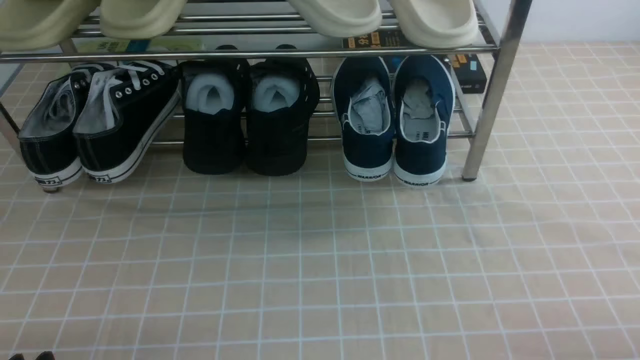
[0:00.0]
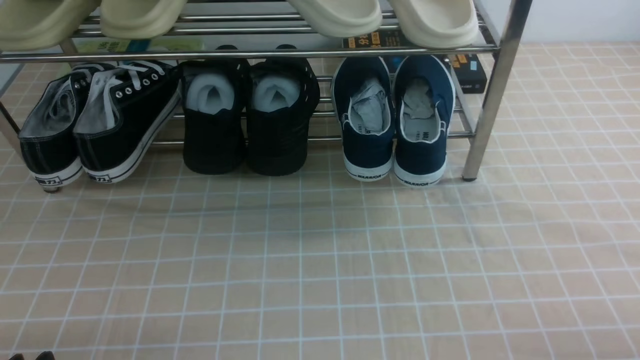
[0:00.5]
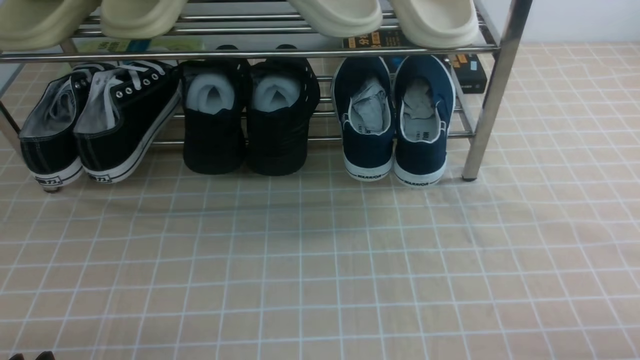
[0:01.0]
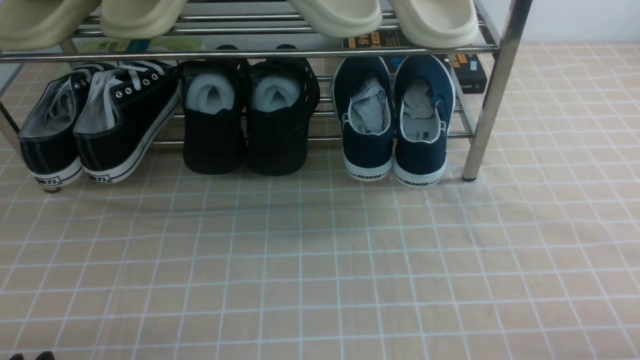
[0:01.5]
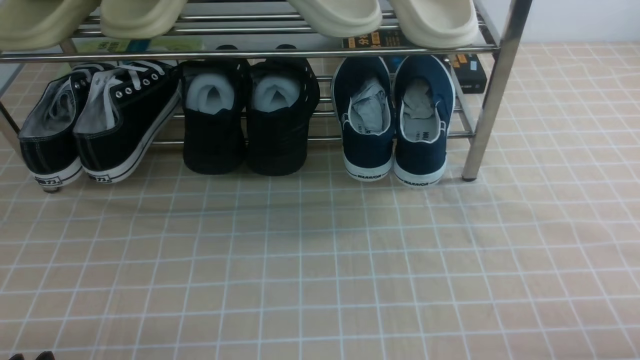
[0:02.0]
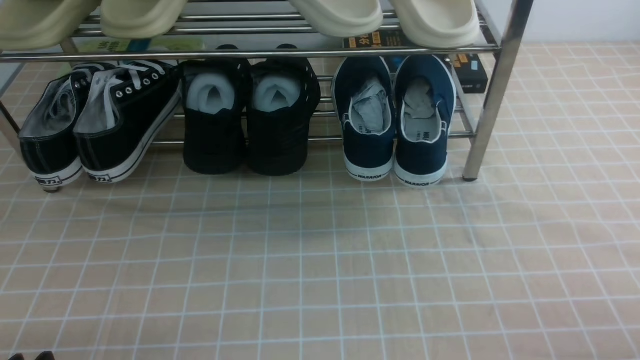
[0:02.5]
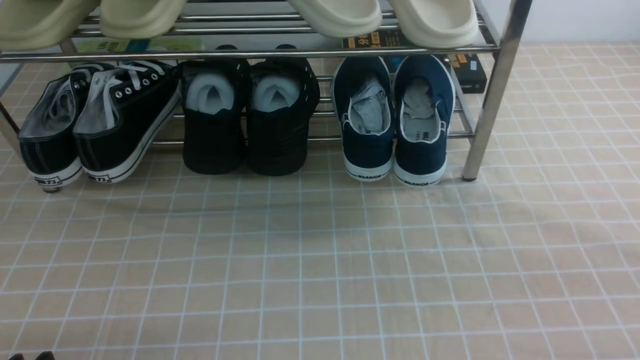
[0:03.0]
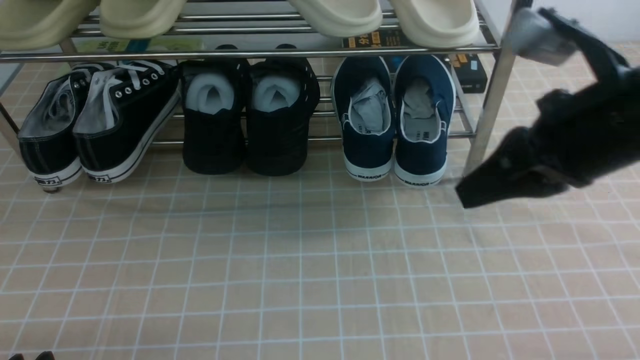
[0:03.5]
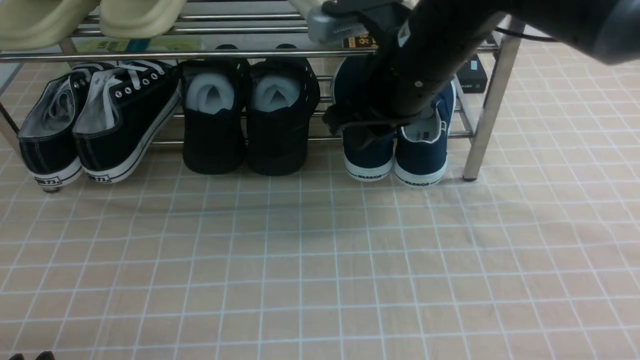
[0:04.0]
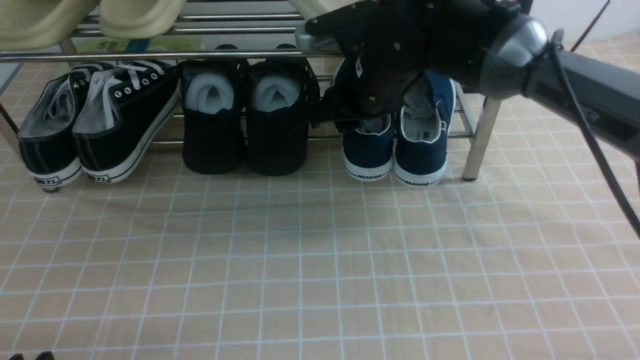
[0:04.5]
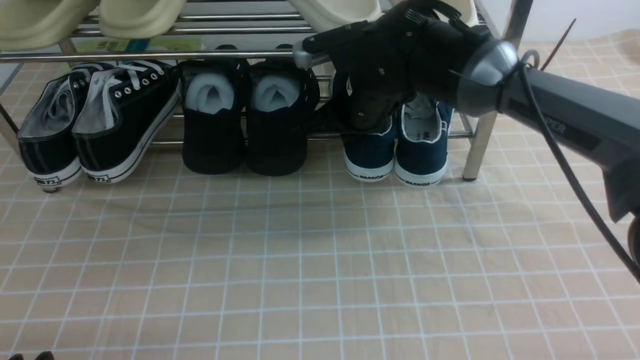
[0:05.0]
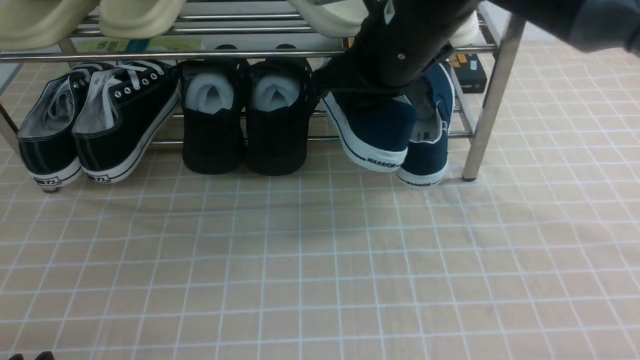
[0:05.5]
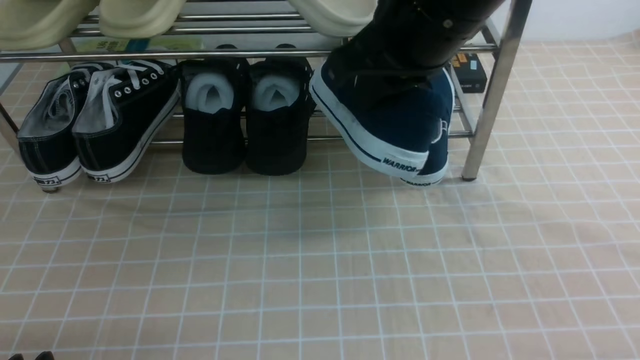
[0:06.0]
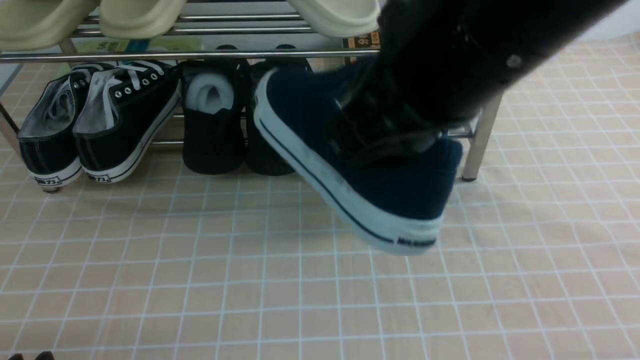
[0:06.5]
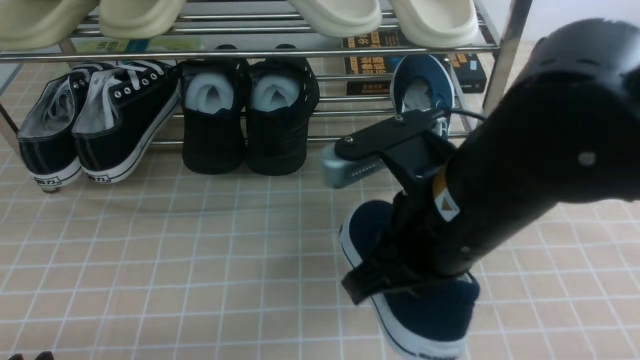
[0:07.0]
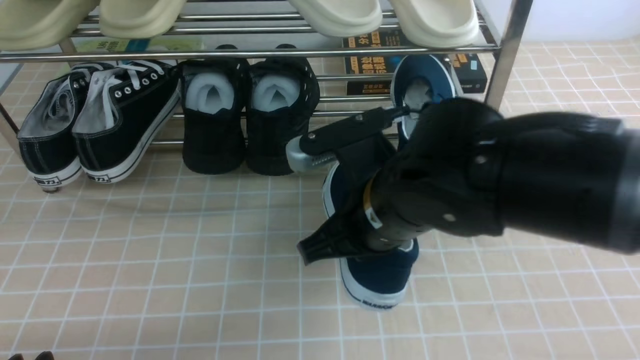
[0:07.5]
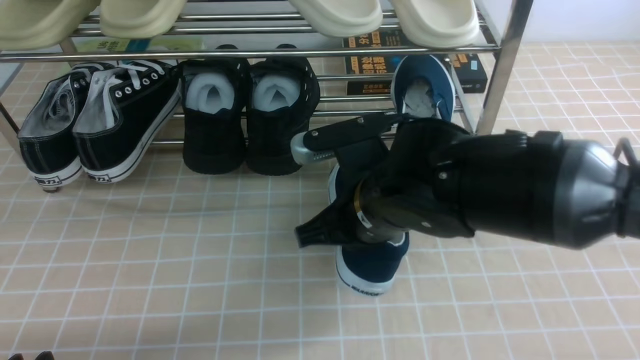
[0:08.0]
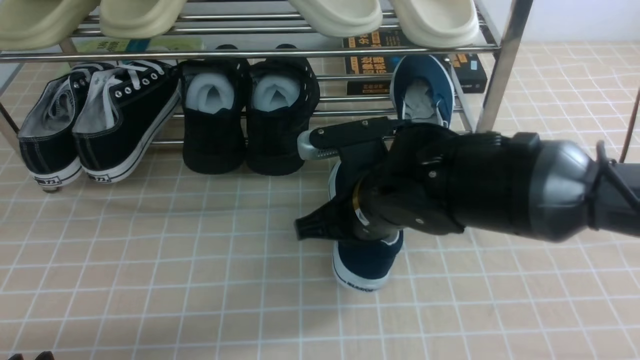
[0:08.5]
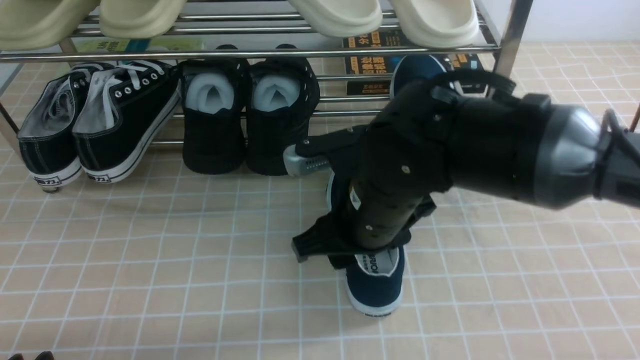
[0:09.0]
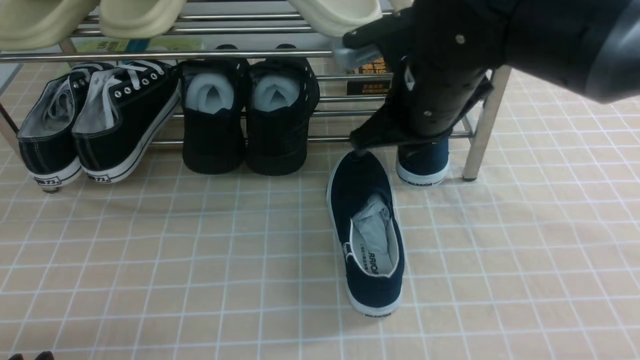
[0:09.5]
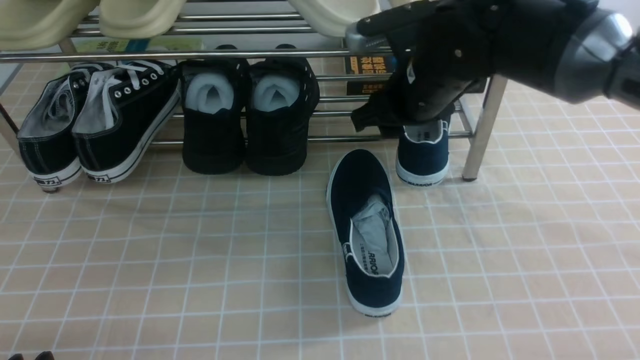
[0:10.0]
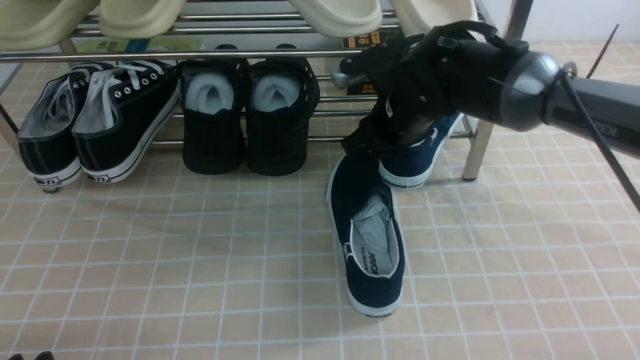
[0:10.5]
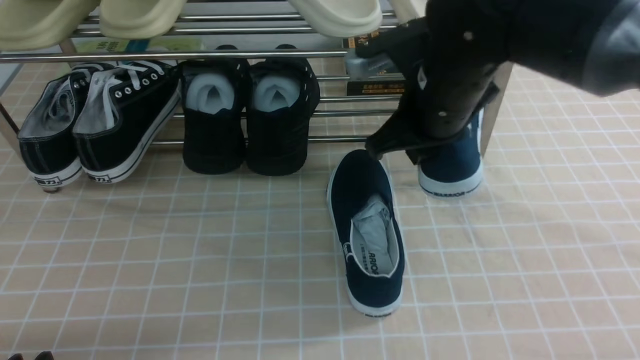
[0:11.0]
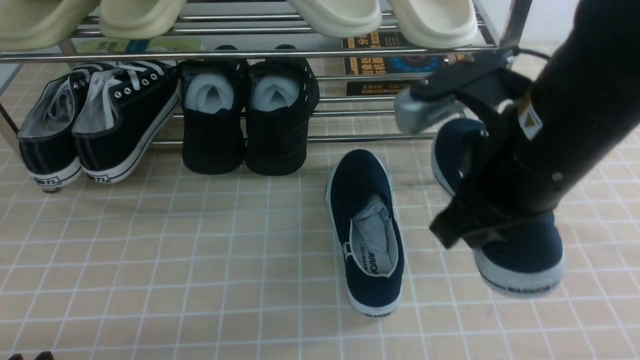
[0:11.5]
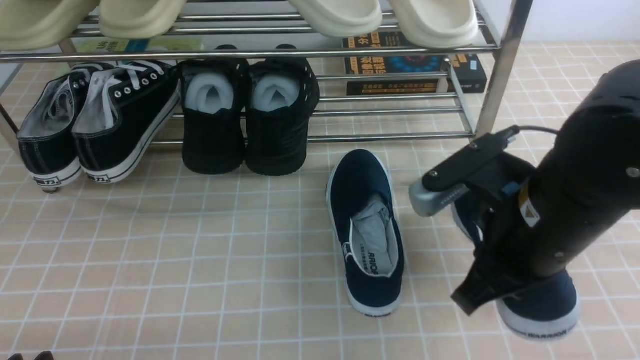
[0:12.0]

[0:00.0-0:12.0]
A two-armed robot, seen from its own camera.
Step, 0:00.0 to 0:05.0: use the right arm to clamp a shoe on the right side of the shoe rack.
Step, 0:05.5 to 0:08.5: use the right arm to take out the clamped shoe from the shoe rack and put it down.
Step, 0:09.0 to 0:10.5: use the right arm to clamp a shoe on the right side of the shoe rack.
0:02.0 to 0:04.0: The right gripper travels forward, to the left and upward by approximately 40 cm, and closes and opens again.
0:04.0 to 0:06.0: The right gripper travels upward and backward by some 10 cm, and closes.
0:06.0 to 0:08.0: The right gripper travels downward by approximately 20 cm.
0:08.0 to 0:10.0: The right gripper shifts some 15 cm forward and to the right, and opens its fingers.
0:10.0 to 0:12.0: The right gripper goes approximately 15 cm backward, and closes.

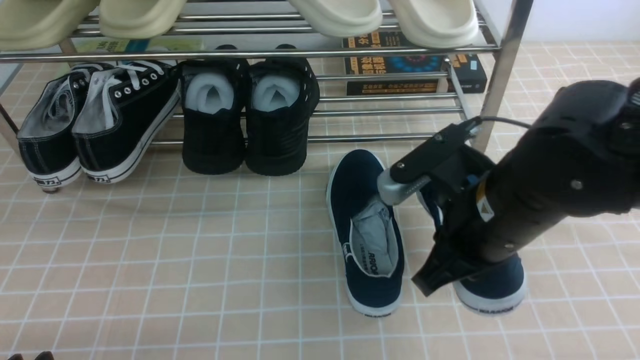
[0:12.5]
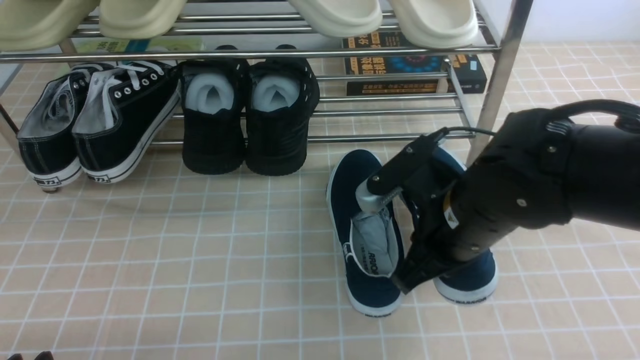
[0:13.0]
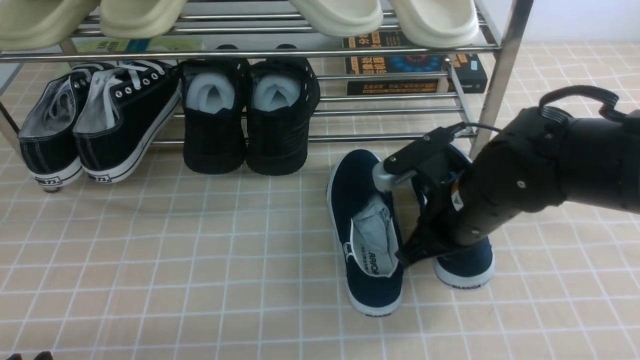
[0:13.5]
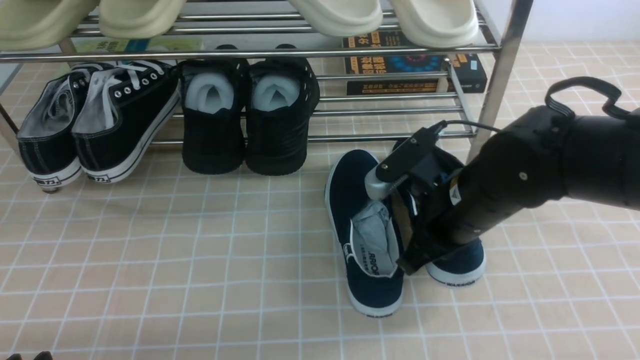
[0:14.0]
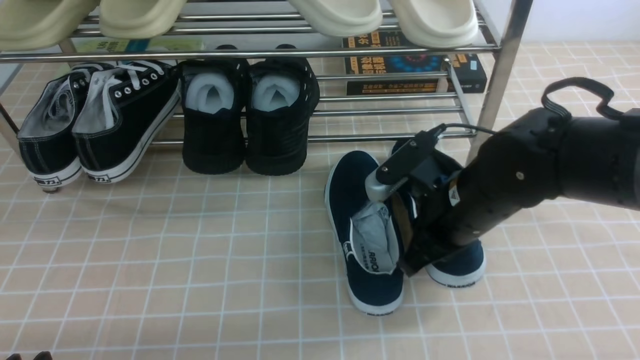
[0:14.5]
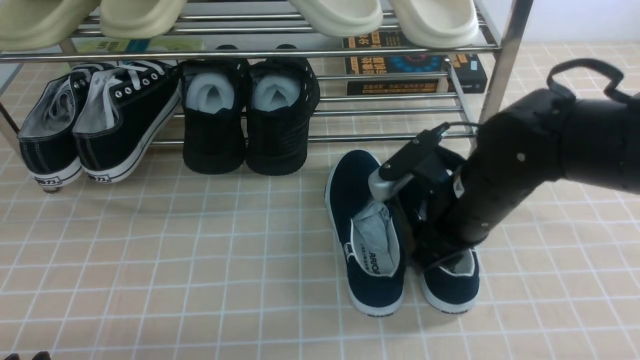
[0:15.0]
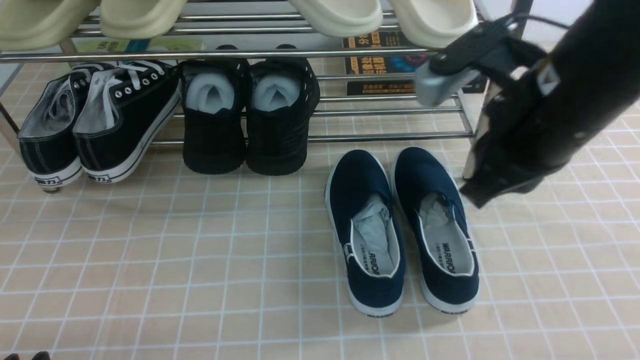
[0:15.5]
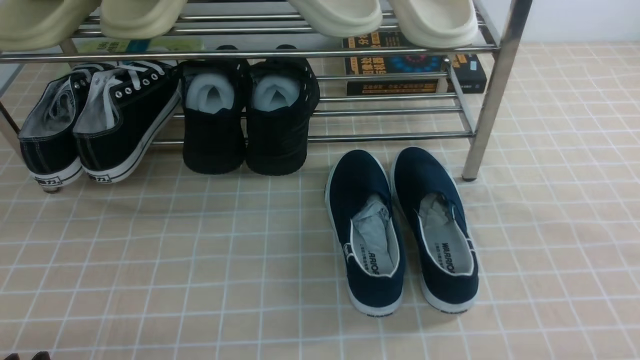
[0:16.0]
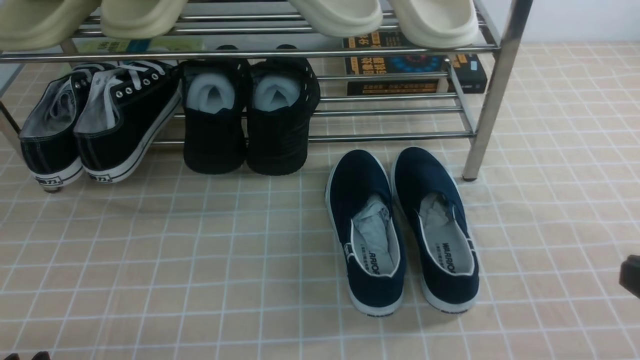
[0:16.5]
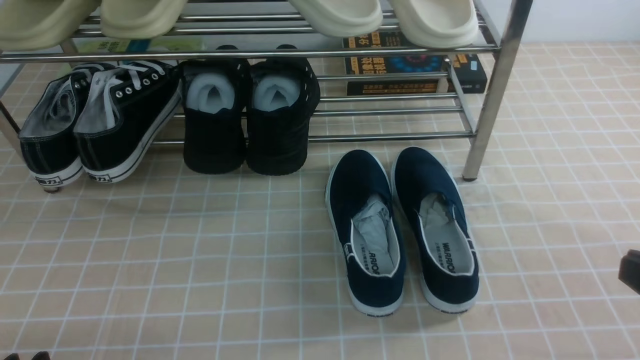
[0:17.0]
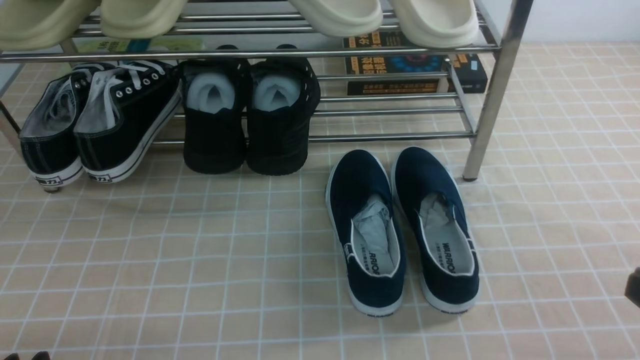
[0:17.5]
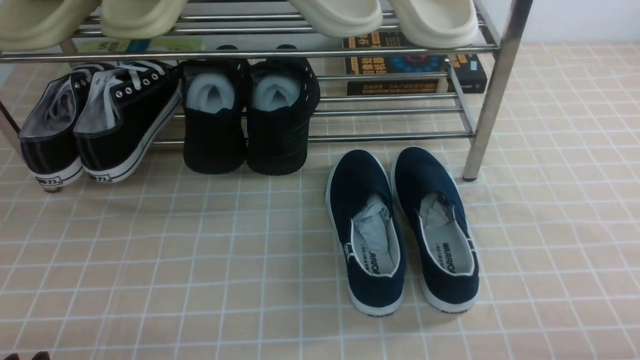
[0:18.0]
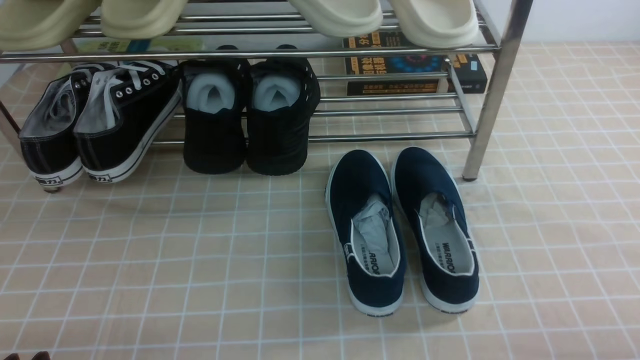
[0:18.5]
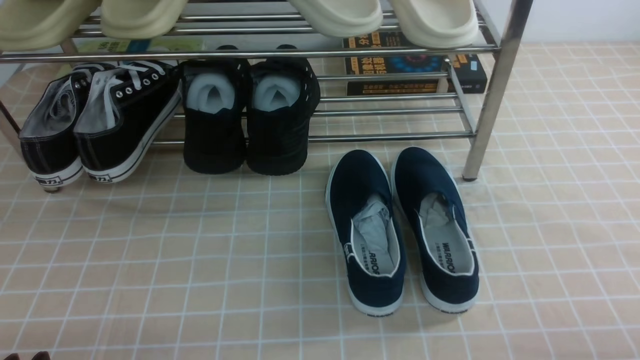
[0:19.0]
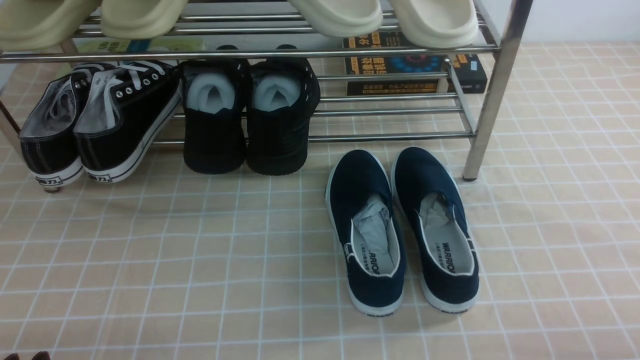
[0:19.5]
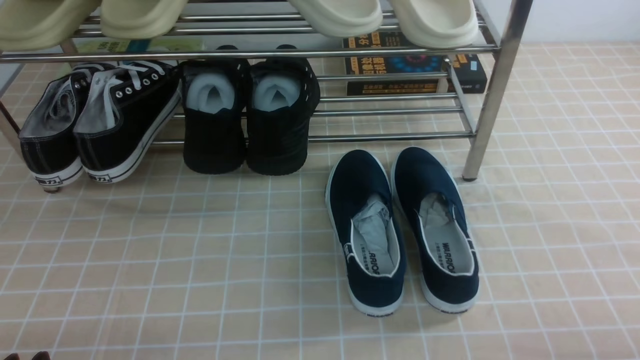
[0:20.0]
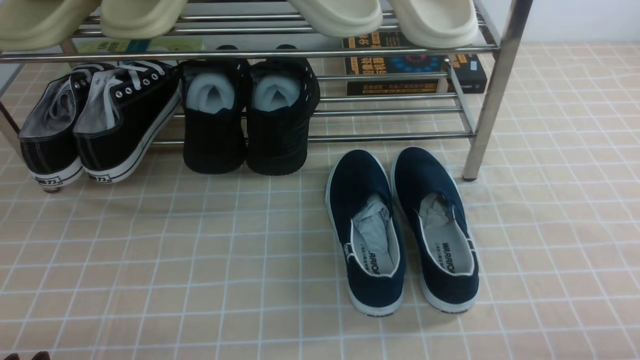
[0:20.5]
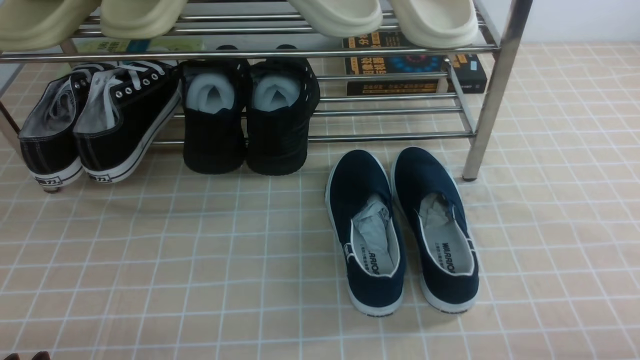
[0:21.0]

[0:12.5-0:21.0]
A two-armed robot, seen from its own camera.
Step, 0:12.5 to 0:15.0: use the right arm to take out the clamped shoe from the shoe rack and put it down.
0:12.5 to 0:14.5: The right gripper moves forward and downward, some 10 cm.
0:14.5 to 0:16.5: The right gripper goes about 30 cm backward, to the right and upward, and opens and closes again.
0:19.0 to 0:21.0: Neither gripper changes place.
